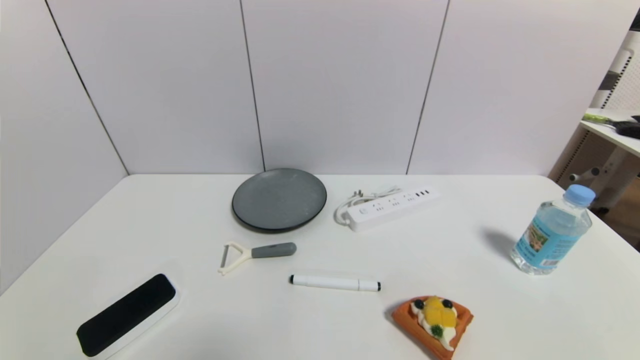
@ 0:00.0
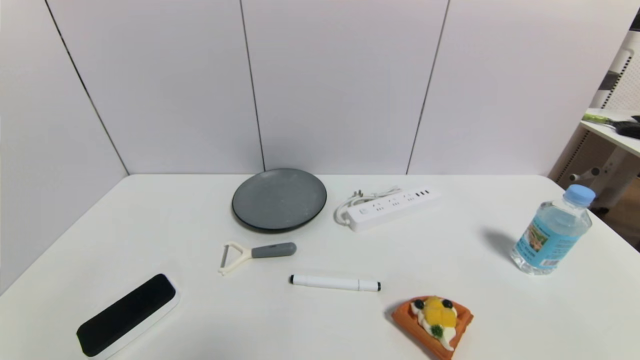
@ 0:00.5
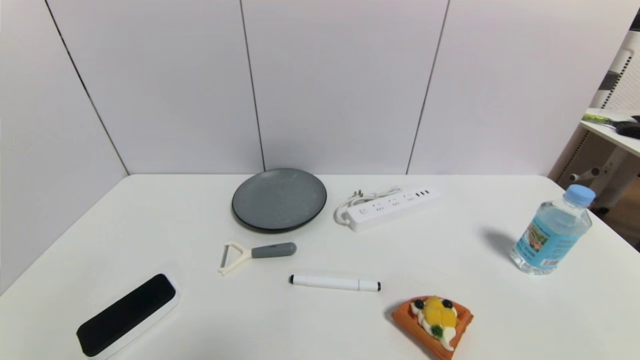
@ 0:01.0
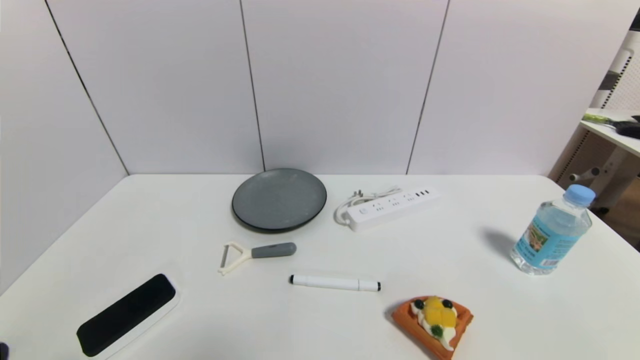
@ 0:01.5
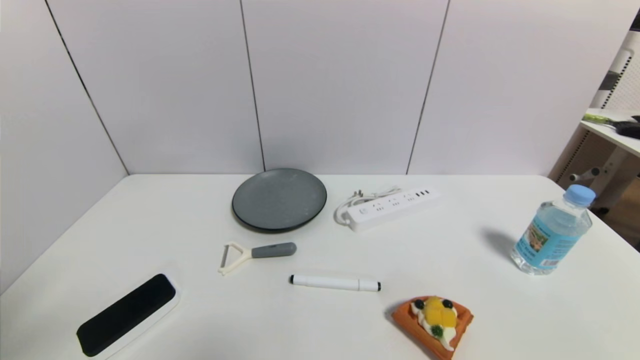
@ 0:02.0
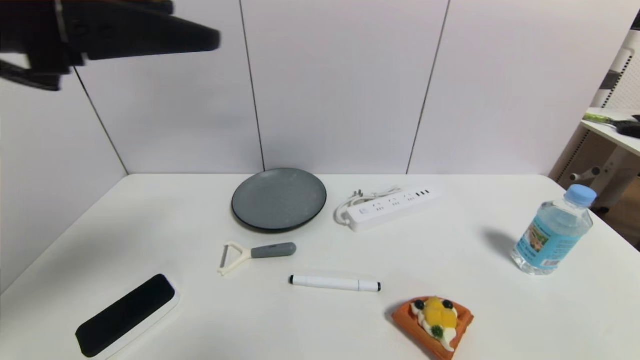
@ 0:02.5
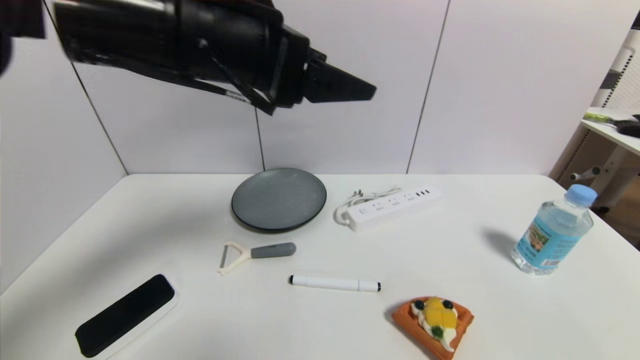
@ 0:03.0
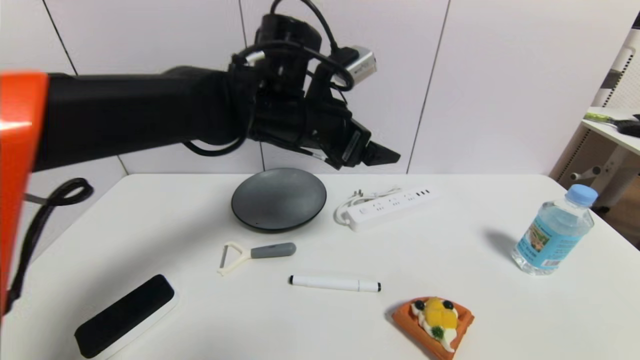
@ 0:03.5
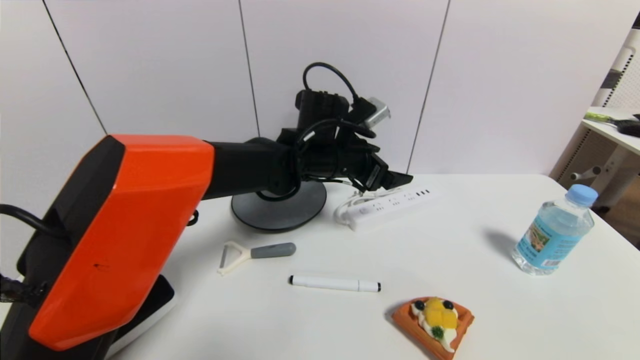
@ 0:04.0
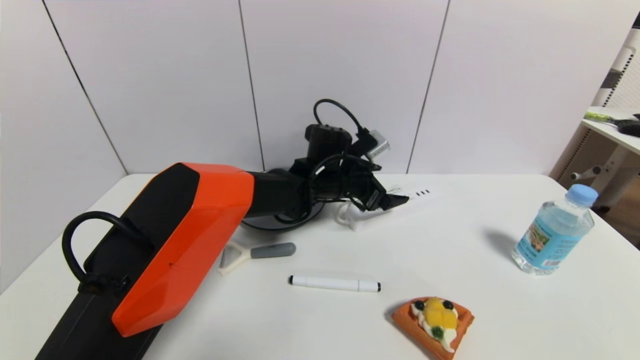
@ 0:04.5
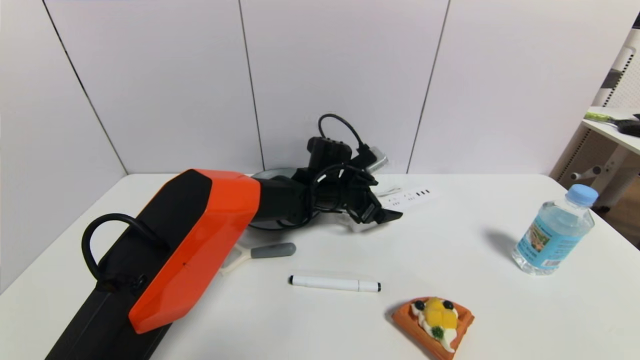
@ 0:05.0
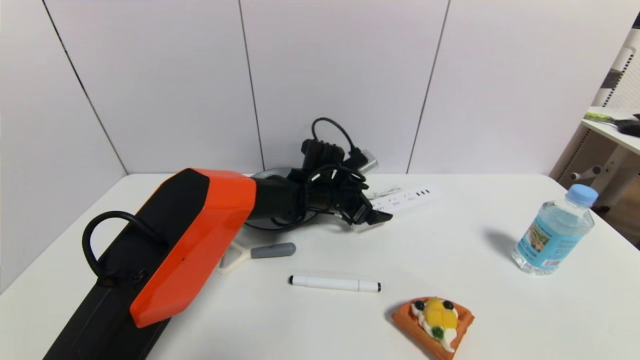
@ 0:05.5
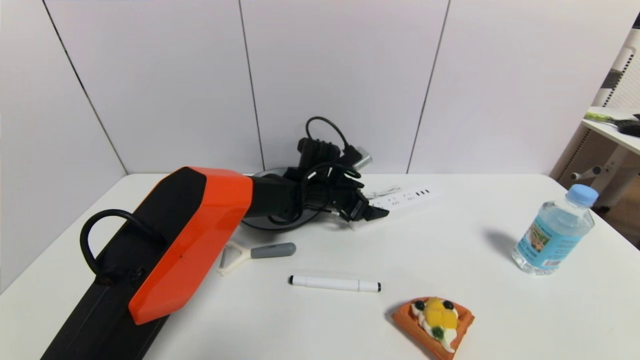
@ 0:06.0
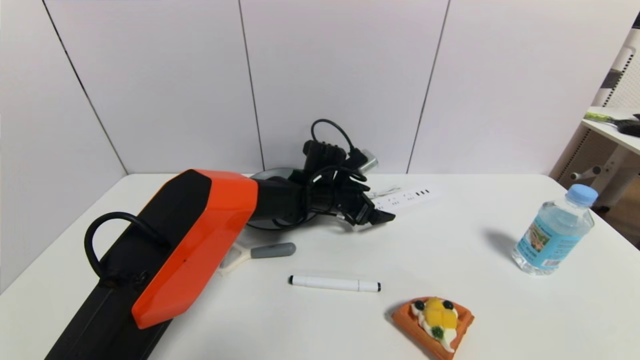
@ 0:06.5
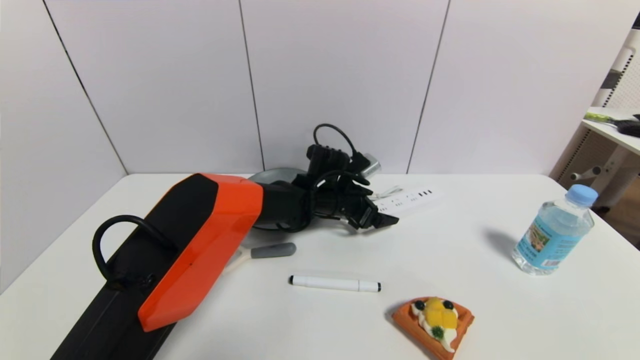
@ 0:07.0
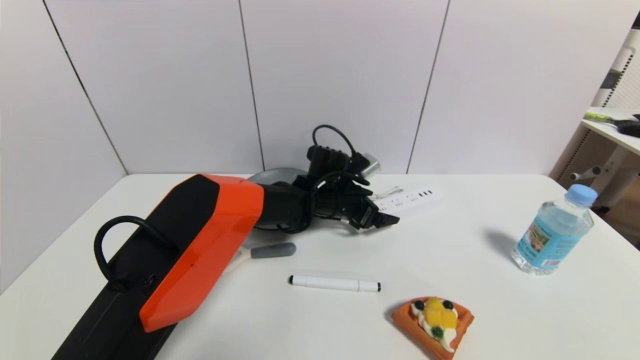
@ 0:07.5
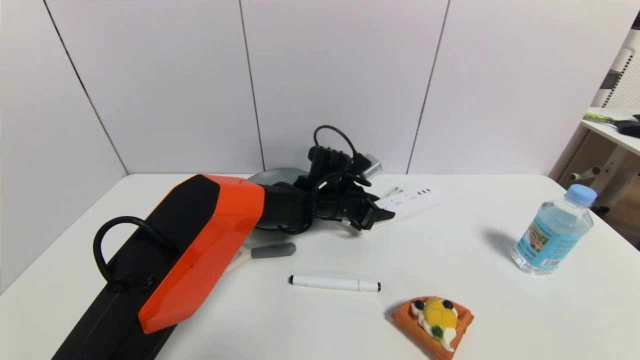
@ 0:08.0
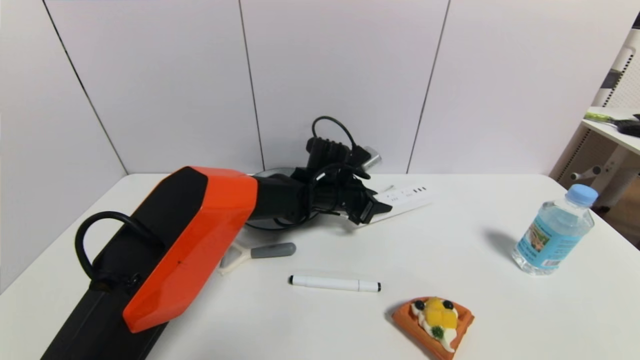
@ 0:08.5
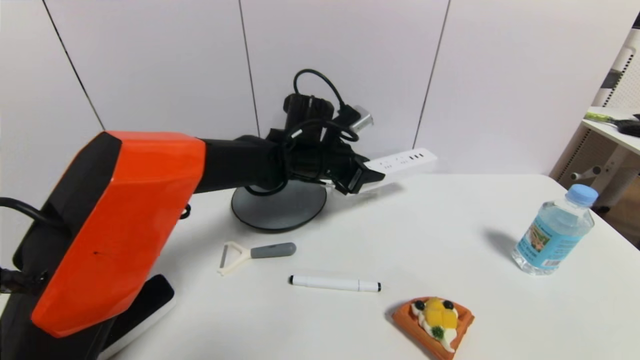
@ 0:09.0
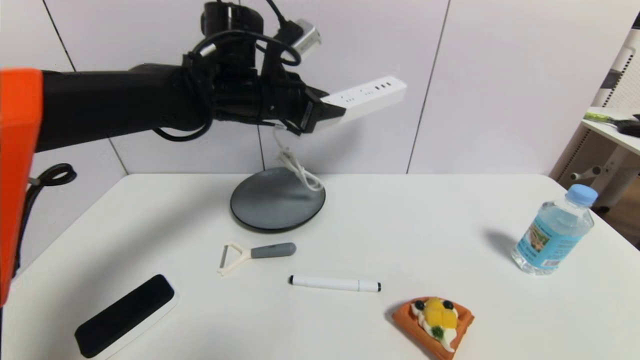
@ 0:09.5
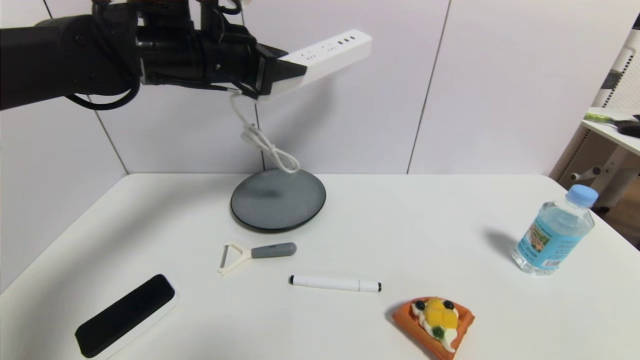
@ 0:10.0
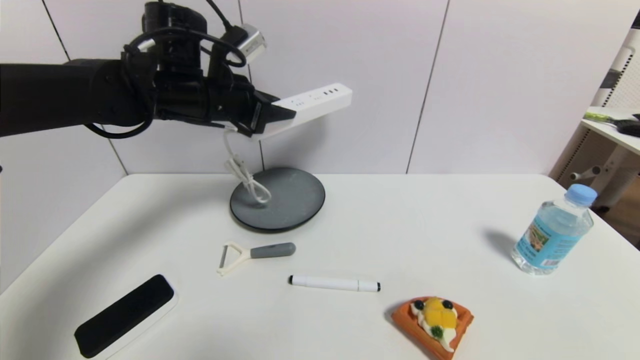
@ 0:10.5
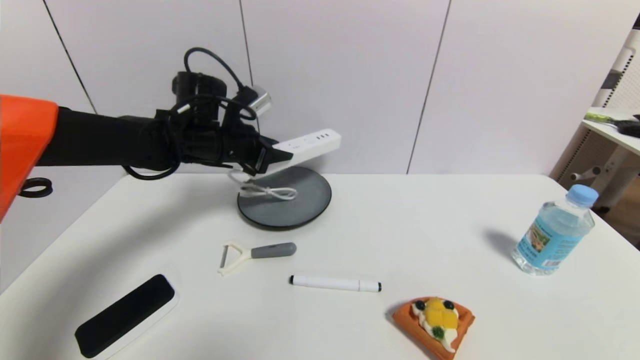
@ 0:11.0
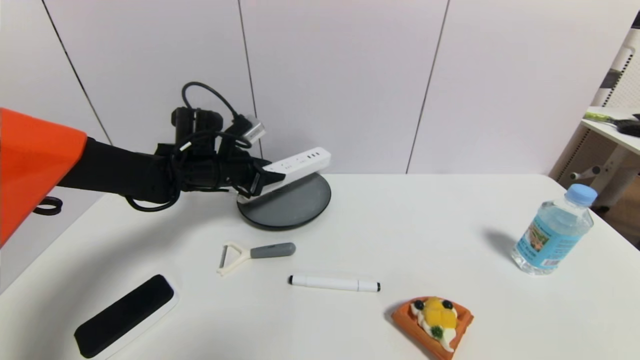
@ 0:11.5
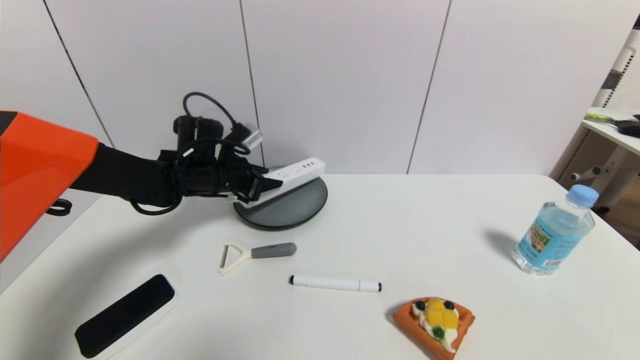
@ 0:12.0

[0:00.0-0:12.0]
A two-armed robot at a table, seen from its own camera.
Task of the whole recording: use a gripper to pick the target object and place on the gray plate.
Step, 0:00.0 to 0:08.0: Grasp the plugboard with the left gripper.
0:00.0 to 0:02.0: The left gripper shifts roughly 25 cm upward.
0:02.0 to 0:04.0: The left gripper moves forward and to the right, roughly 50 cm.
0:04.0 to 0:06.0: The left gripper heads downward, covering about 10 cm.
0:06.0 to 0:08.0: The left gripper closes its fingers.
0:08.0 to 0:10.0: The left gripper moves upward and to the left, roughly 30 cm.
0:10.0 to 0:12.0: The left gripper heads downward, covering some 20 cm.

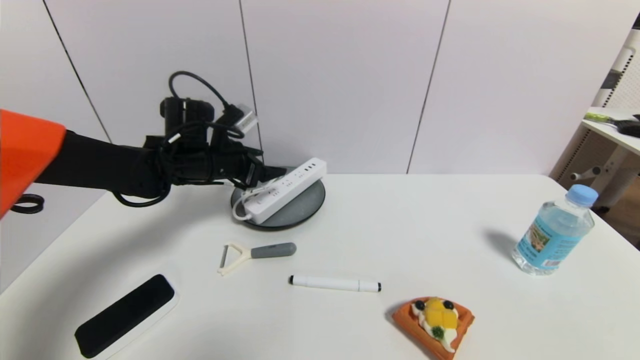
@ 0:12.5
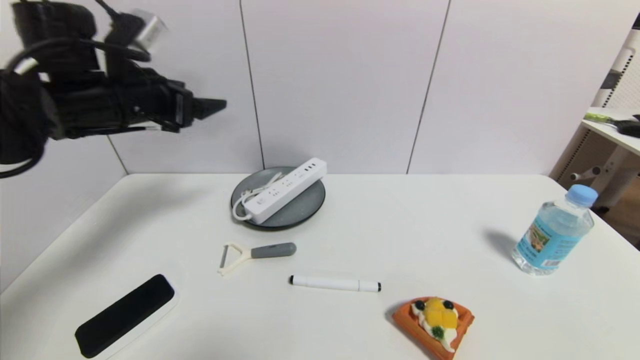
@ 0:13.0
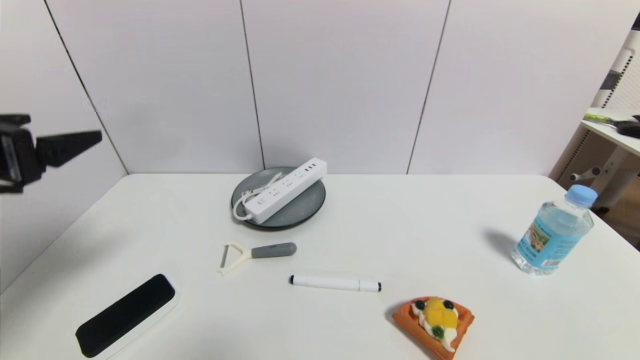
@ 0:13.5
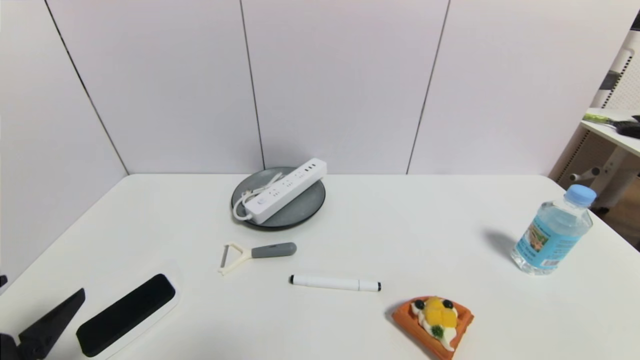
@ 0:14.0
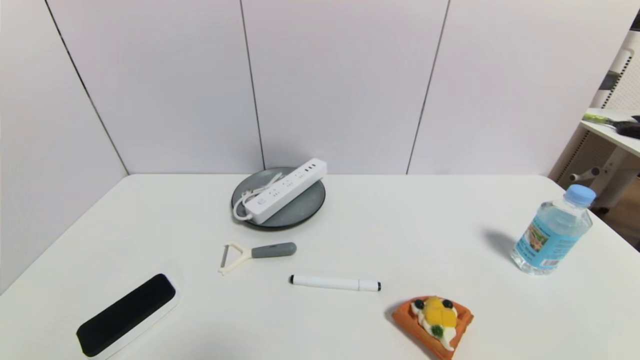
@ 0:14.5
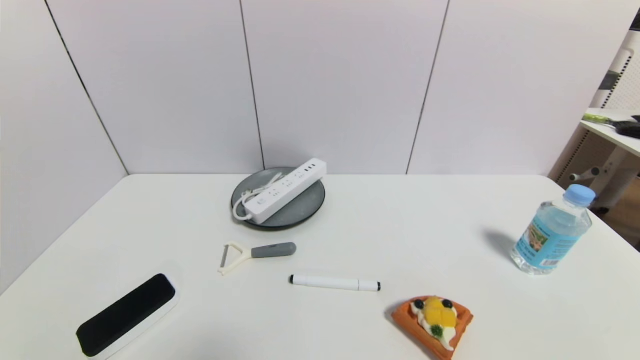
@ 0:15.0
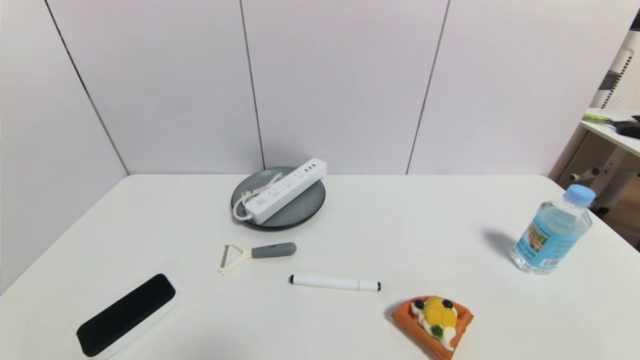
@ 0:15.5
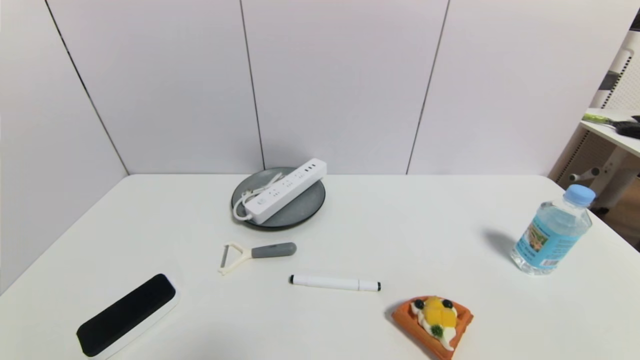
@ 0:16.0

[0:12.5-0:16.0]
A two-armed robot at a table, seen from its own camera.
Task of the whole recording: use a gripper to pick the target object and place on the gray plate.
0:12.5 to 0:14.5: The left gripper goes some 40 cm backward.
